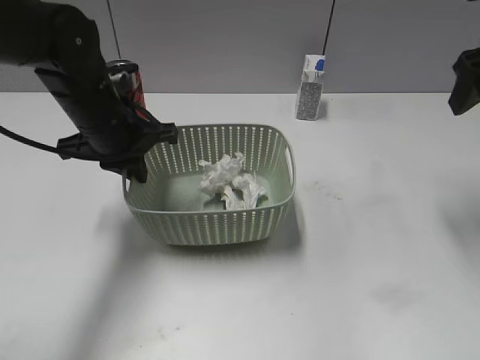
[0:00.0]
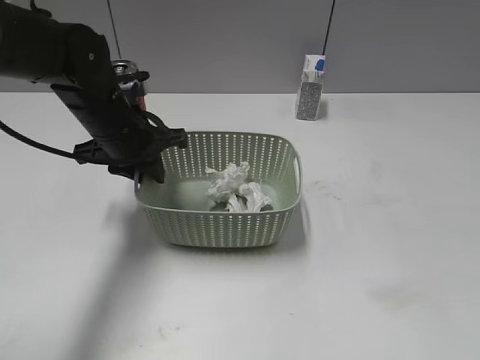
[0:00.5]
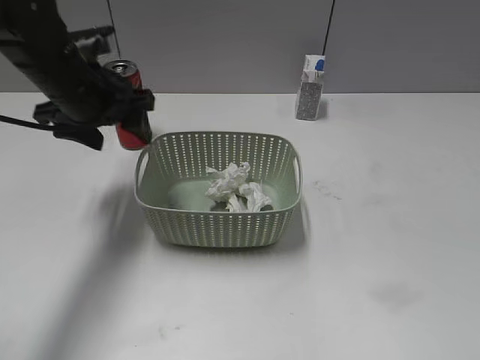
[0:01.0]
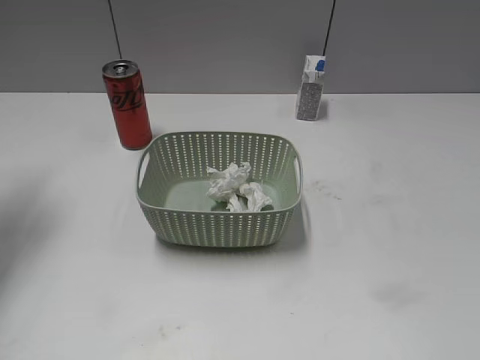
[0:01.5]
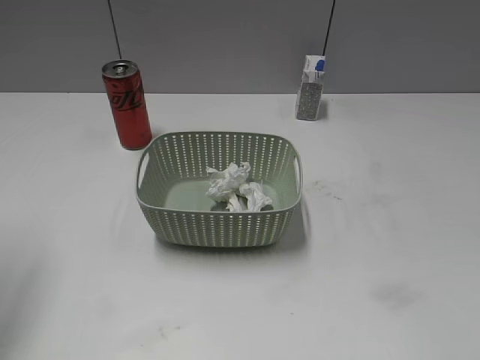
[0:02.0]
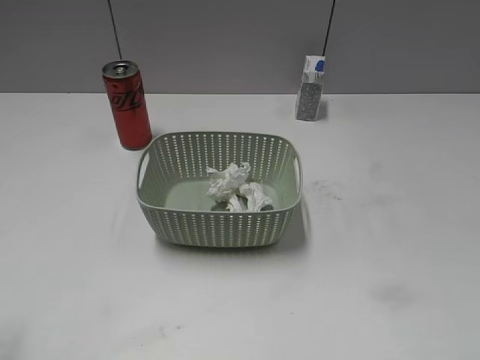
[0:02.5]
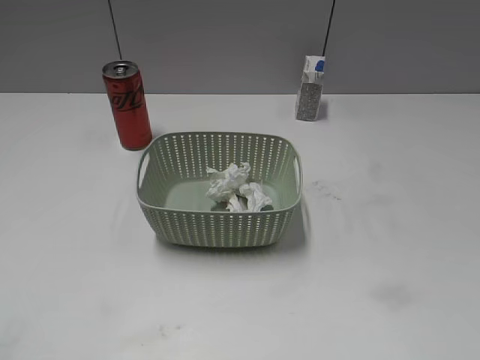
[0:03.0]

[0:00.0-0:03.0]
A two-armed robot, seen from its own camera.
0:00.0 to 0:01.5: The right gripper is displaced backward by some 30 cm. The left gripper goes approximately 25 cm to the left and upward, and opens up.
0:01.5 to 0:03.0: The left gripper heads backward, covering about 30 cm.
